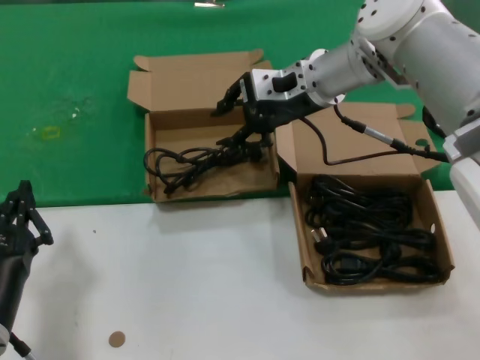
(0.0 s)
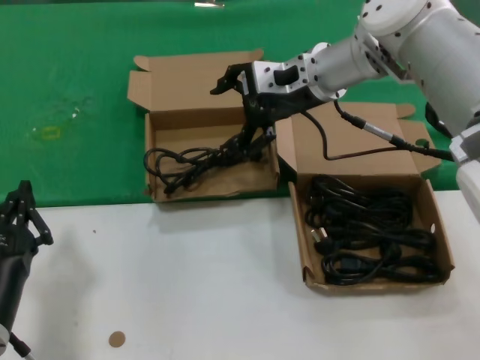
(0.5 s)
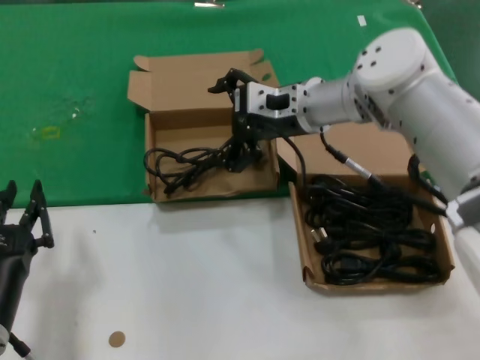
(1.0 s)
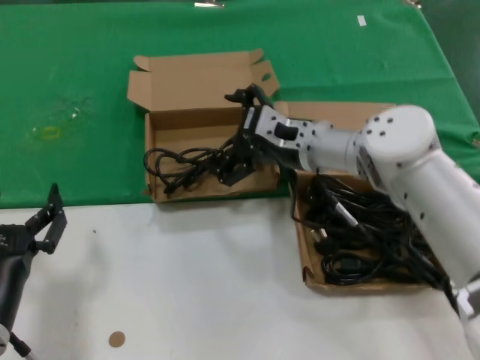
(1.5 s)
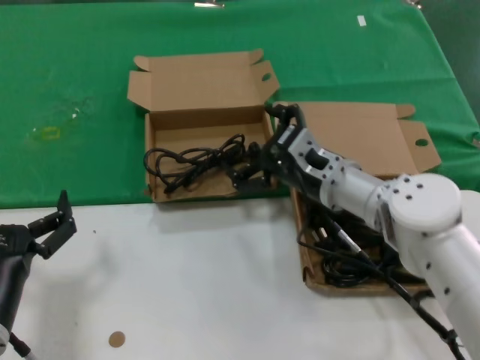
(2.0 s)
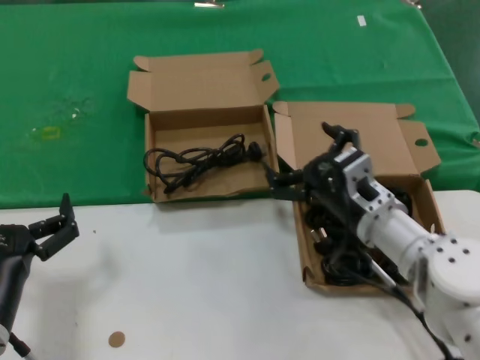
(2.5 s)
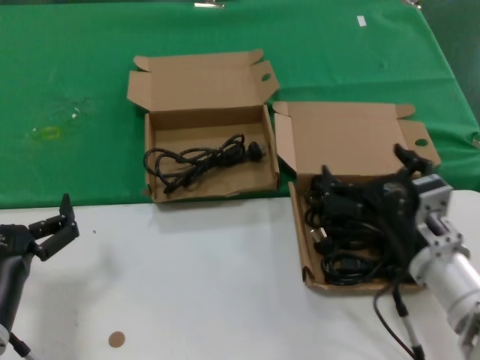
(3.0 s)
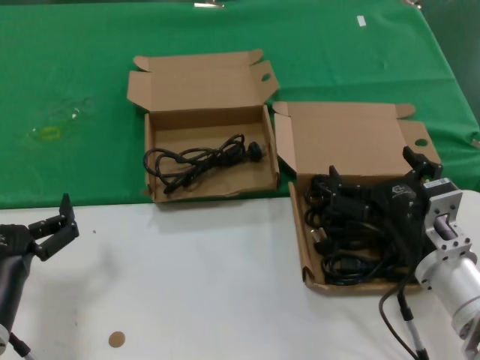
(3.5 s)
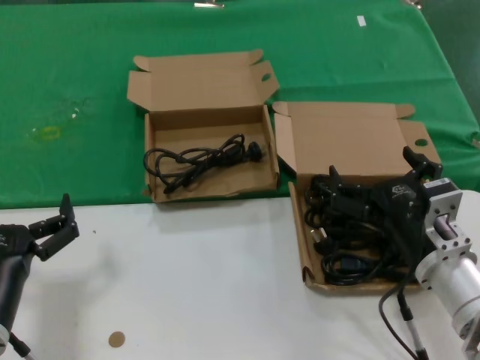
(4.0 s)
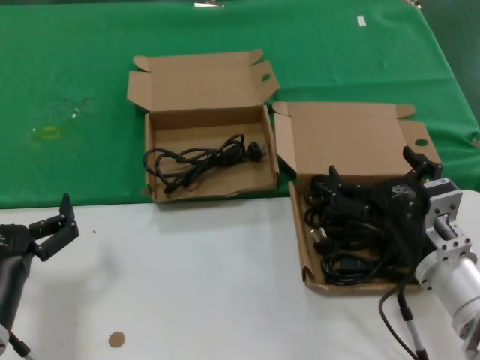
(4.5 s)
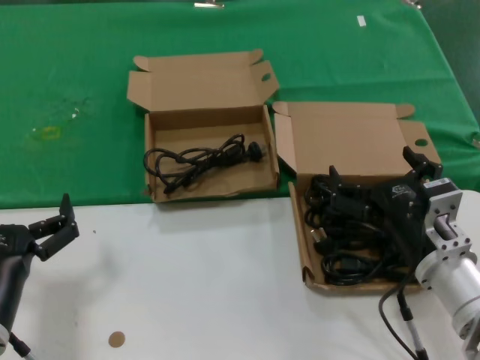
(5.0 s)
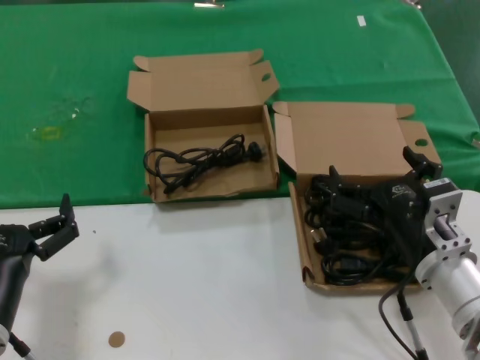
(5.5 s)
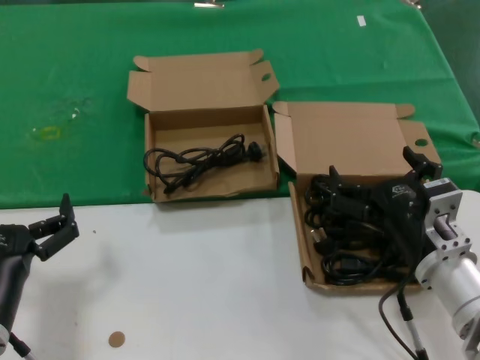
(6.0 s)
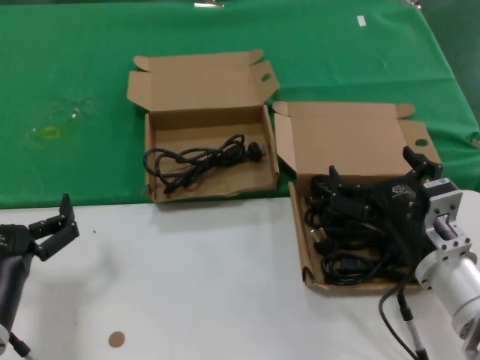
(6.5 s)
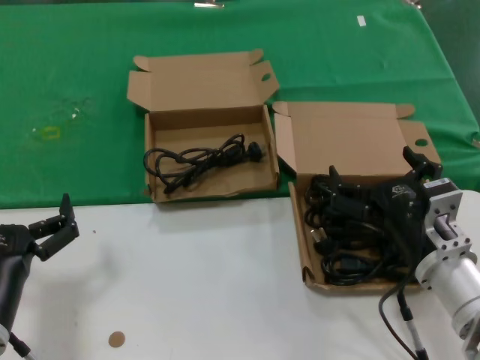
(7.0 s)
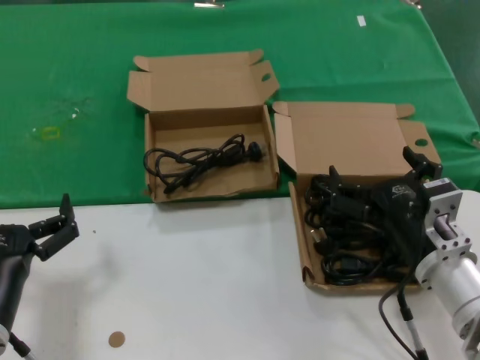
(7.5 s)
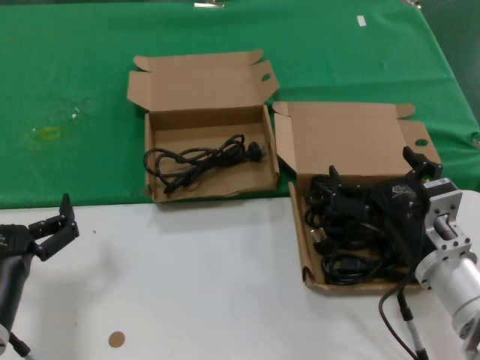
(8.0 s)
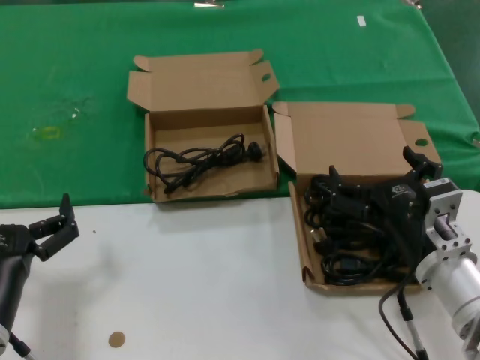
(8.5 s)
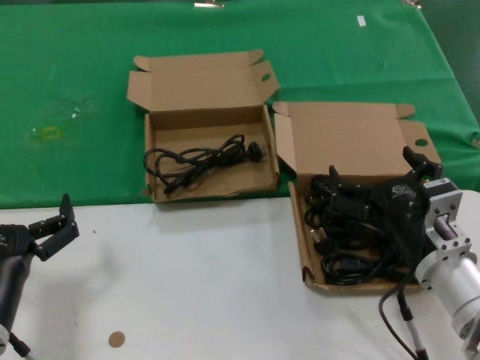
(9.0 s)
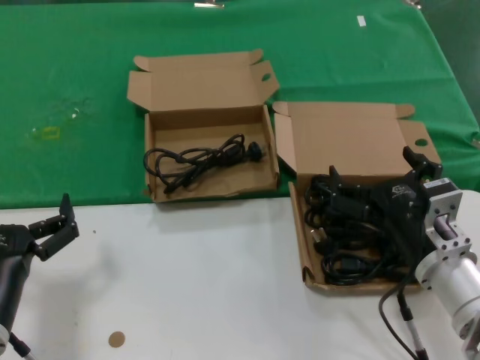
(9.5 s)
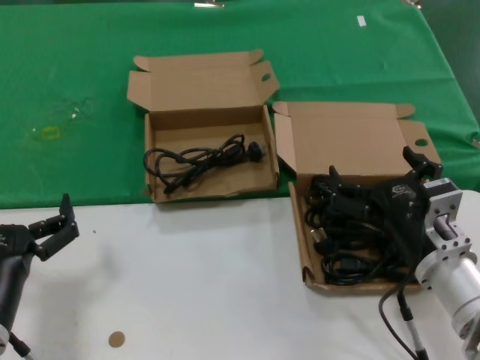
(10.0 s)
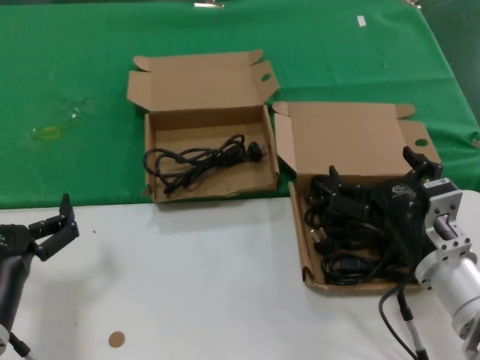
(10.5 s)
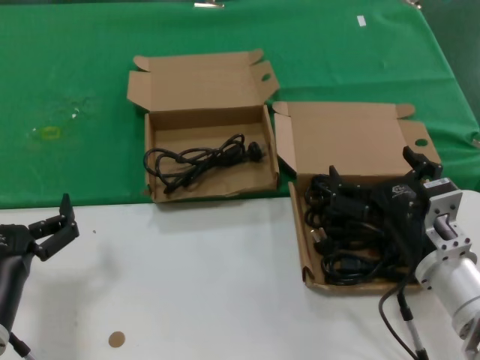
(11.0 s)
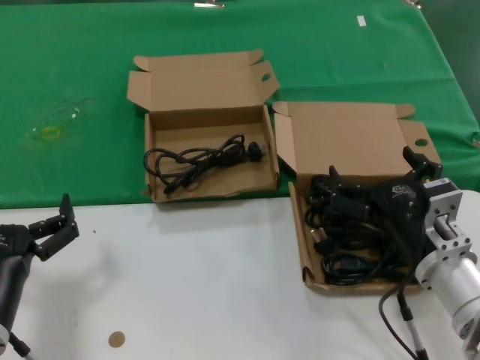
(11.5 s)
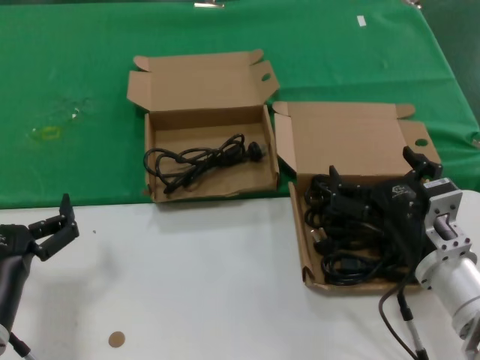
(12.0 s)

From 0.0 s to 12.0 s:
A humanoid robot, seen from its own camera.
Task of the whole recording: take the parts from the box containing them and put them into an empty box.
From 0.0 s to 2.0 s: The right hand heads downward and backward, covering approximately 20 cm.
From 2.0 s to 4.0 s: The right hand goes about 15 cm backward and to the right.
From 4.0 s to 12.0 s: Neither hand changes place.

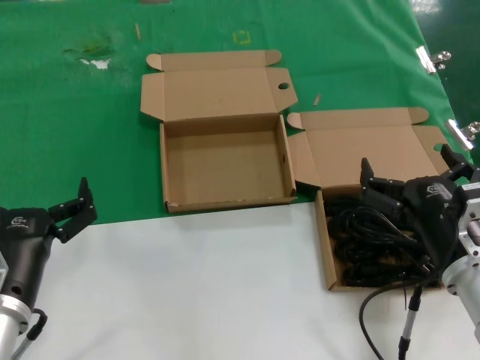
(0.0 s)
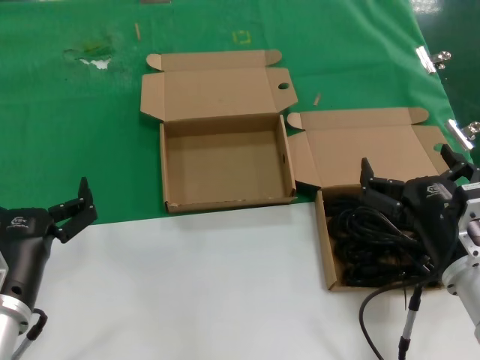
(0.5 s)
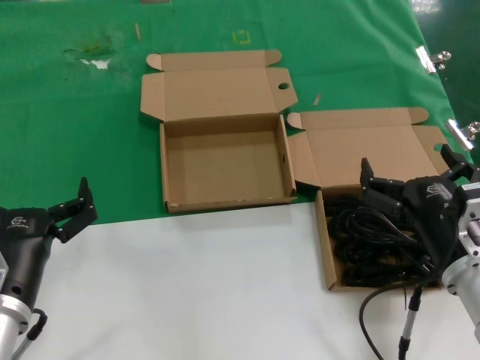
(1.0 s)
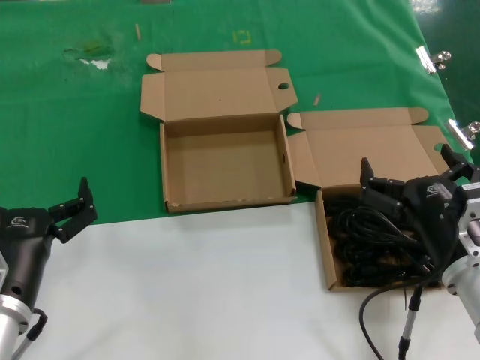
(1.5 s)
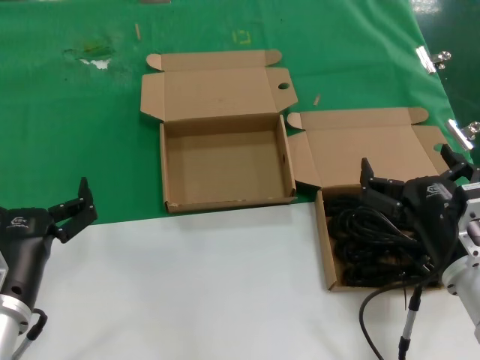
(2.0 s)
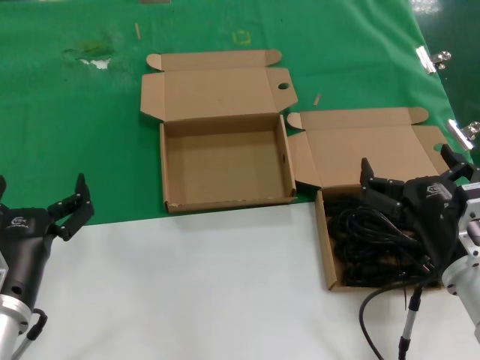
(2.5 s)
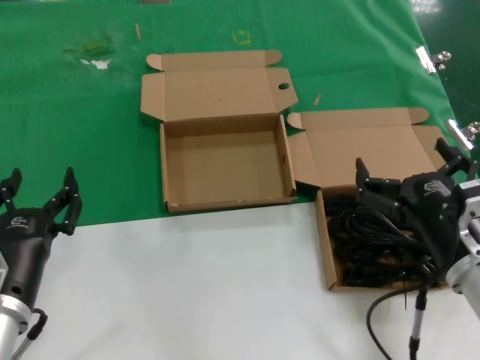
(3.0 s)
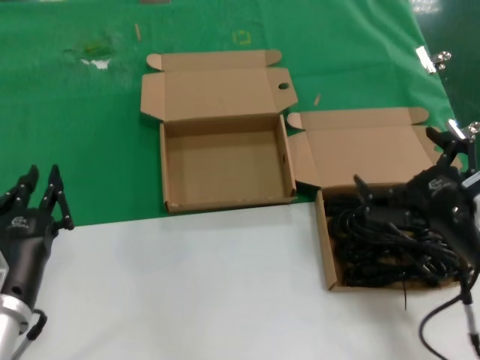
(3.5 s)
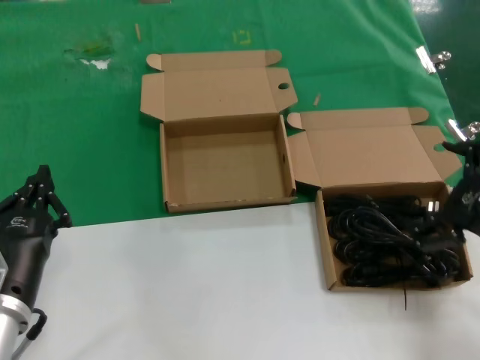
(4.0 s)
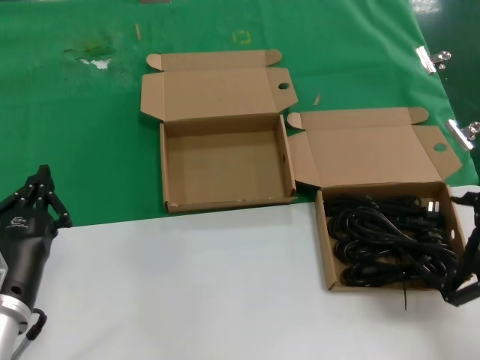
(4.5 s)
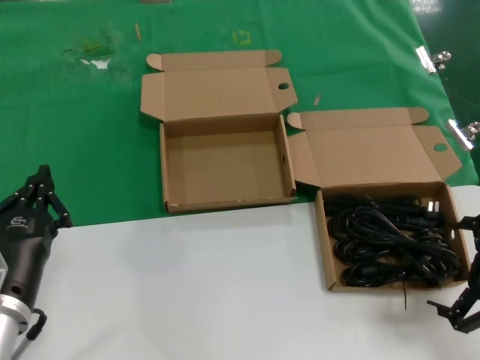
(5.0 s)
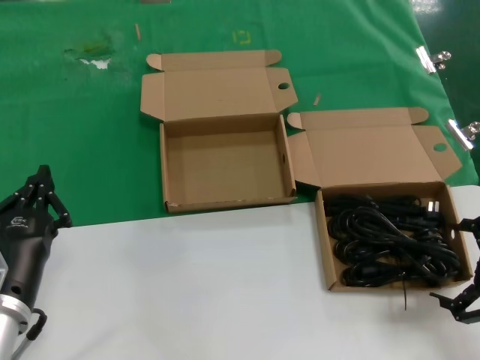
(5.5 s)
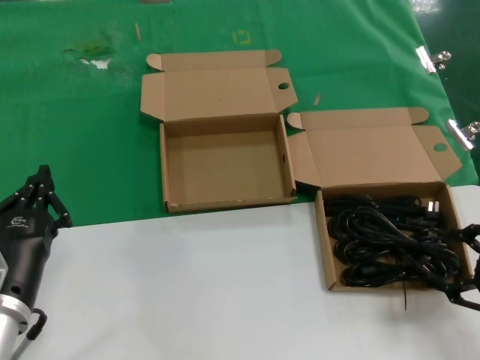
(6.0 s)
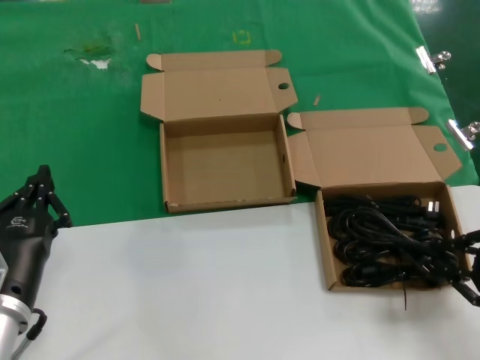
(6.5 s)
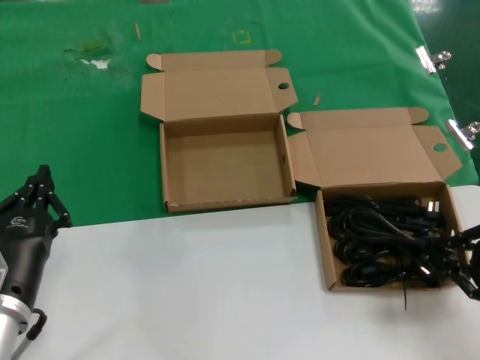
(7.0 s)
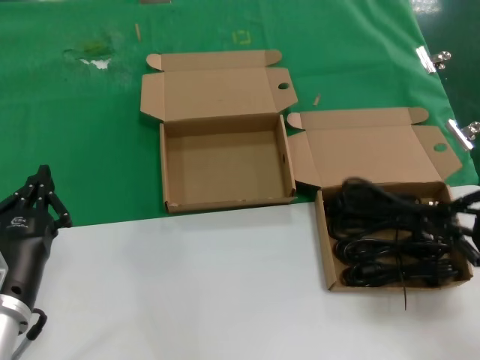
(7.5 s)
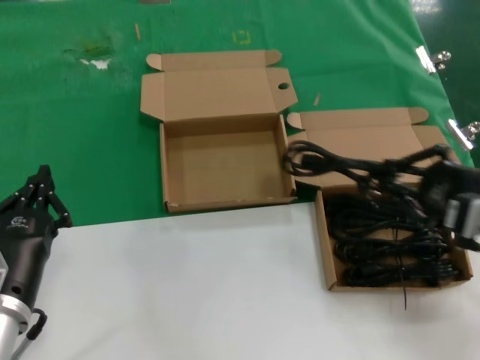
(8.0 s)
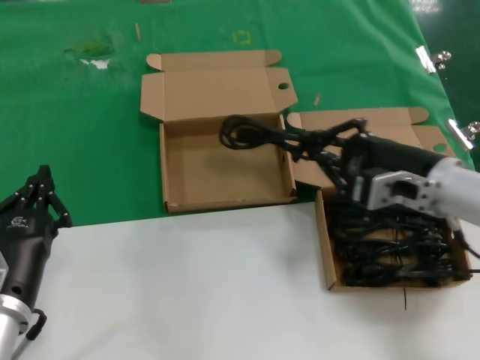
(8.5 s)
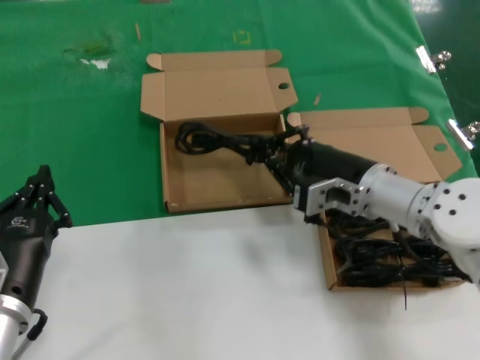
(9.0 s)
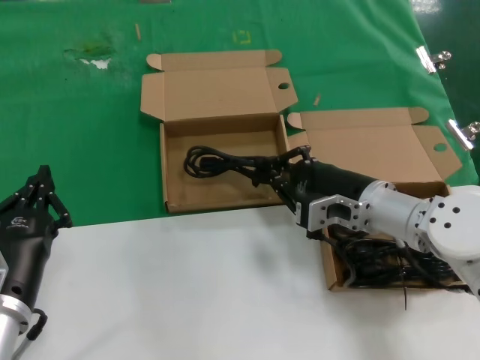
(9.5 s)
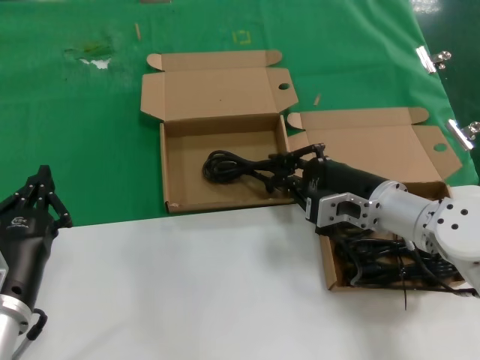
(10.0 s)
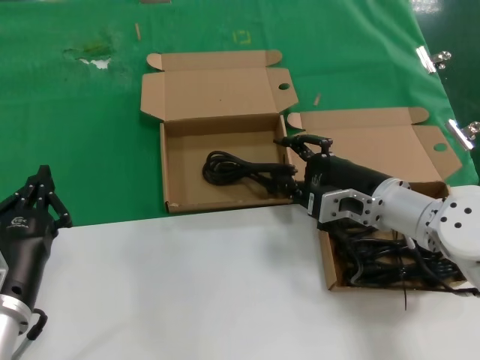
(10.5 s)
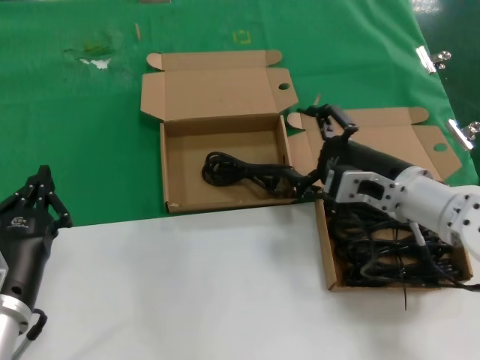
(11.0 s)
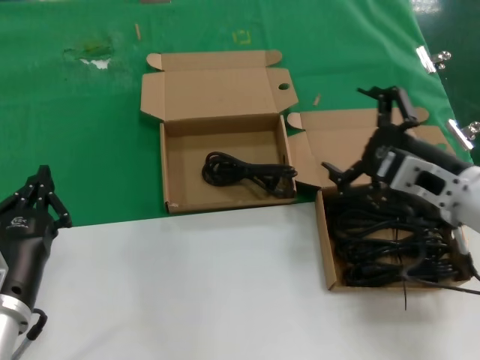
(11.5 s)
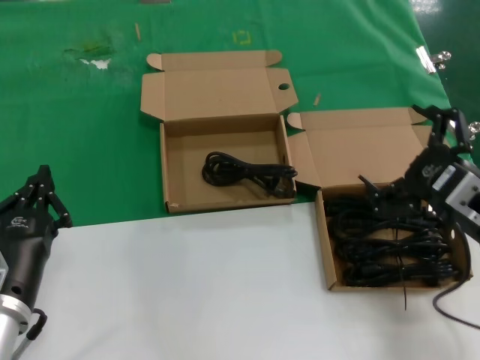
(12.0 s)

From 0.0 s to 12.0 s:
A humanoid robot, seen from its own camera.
Task of the whole recording: take the parts from the box containing them and put them into an empty box.
Step, from 0.0 s to 6.5 s: Grasp the data cable.
Step, from 7.0 s to 10.5 s: Place the data cable in the another box.
From 0.0 s to 2.0 s: Neither hand changes place.
From 2.0 s to 4.0 s: The right hand travels to the right and upward by about 15 cm.
From 4.0 s to 6.0 s: The right hand changes place by about 5 cm.
From 6.0 s to 8.0 s: The right hand ends up some 10 cm from where it was.
From 8.0 s to 10.0 s: The right hand is displaced to the left, forward and downward by some 20 cm.
From 10.0 s to 12.0 s: The right hand moves backward, to the right and upward, some 15 cm.

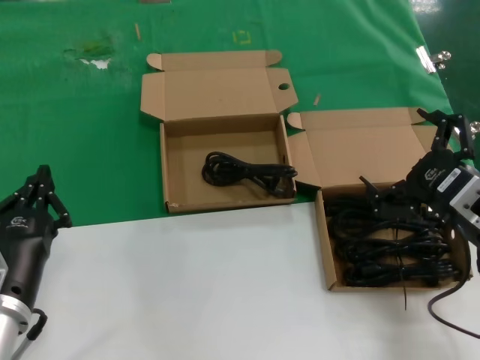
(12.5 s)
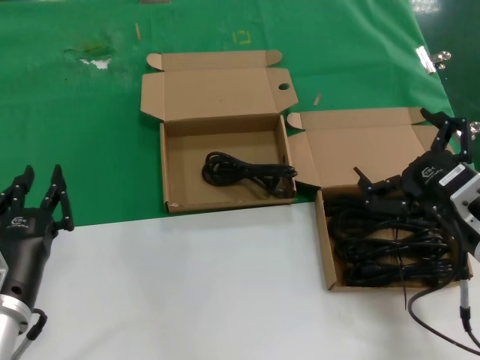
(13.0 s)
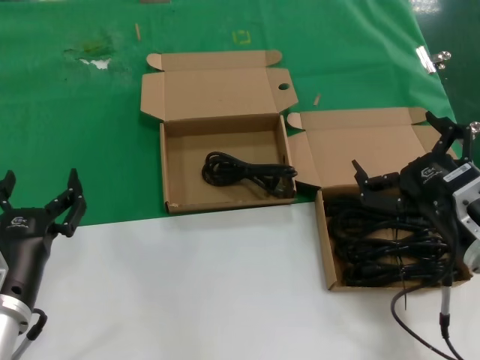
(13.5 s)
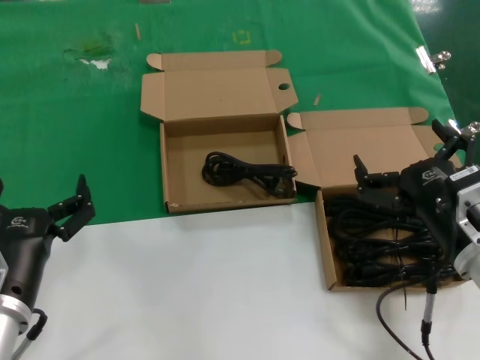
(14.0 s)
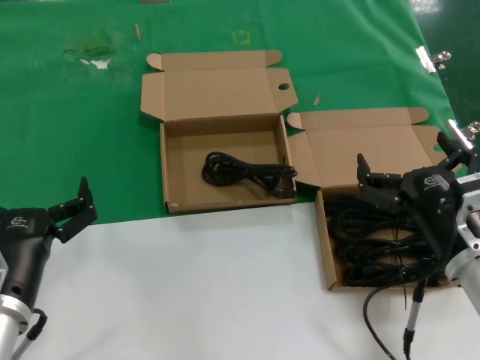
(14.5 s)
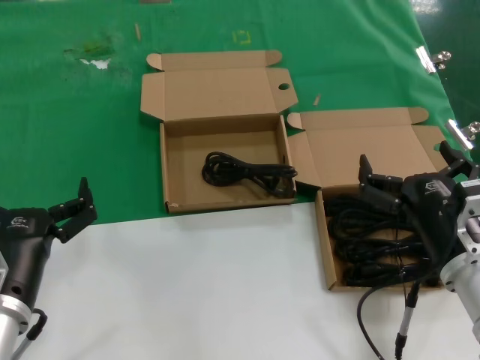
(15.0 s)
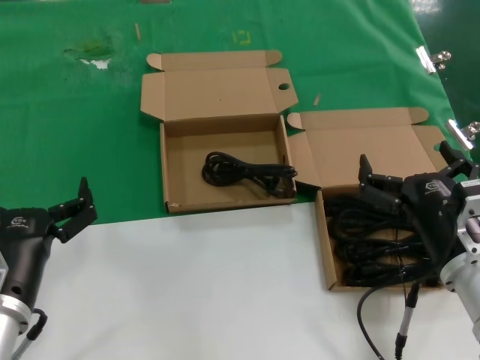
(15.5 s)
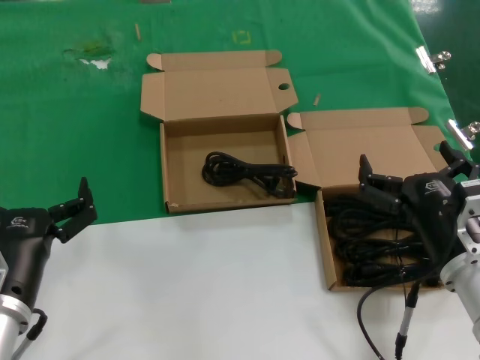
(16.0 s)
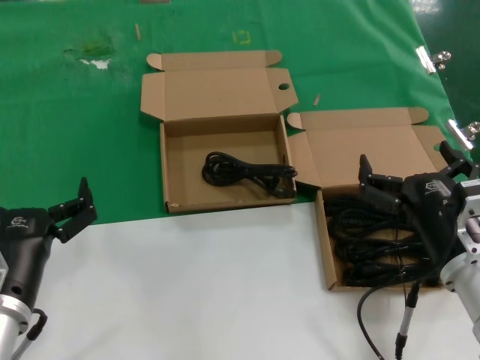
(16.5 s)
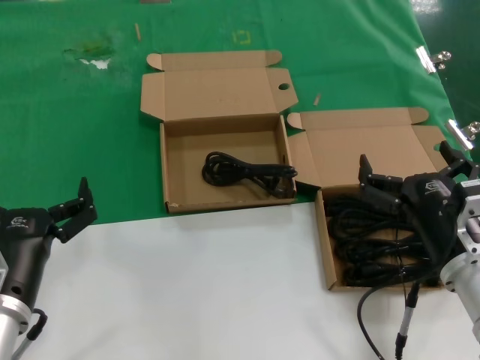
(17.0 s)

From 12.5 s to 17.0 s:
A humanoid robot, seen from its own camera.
Task of the whole recording: take the parts from the box containing them and put them into an empty box.
From 12.5 s to 14.5 s: The right hand shifts roughly 5 cm downward and to the left.
From 14.5 s to 17.0 s: The hands make only small movements.
